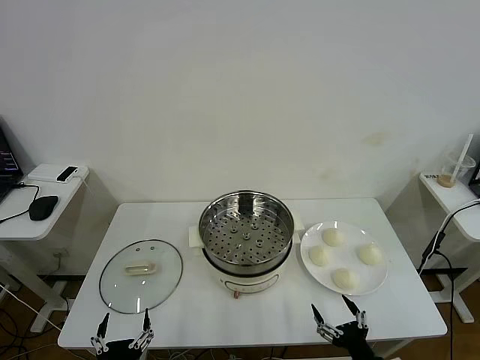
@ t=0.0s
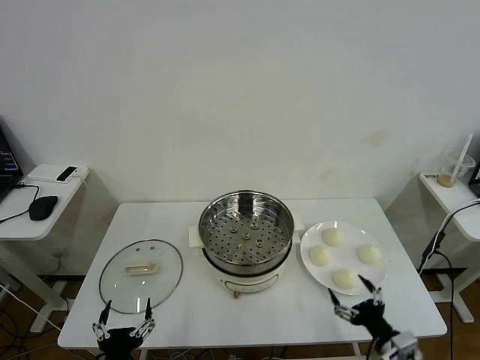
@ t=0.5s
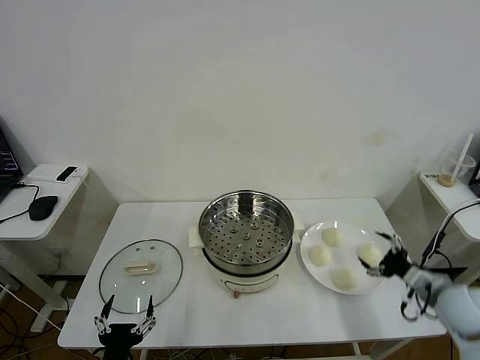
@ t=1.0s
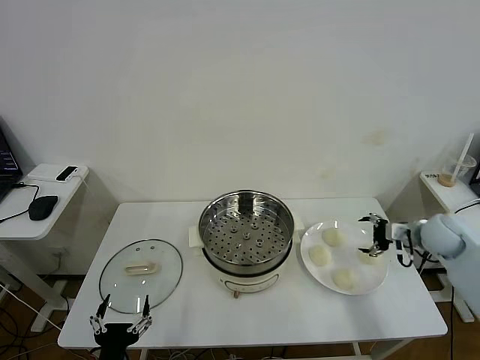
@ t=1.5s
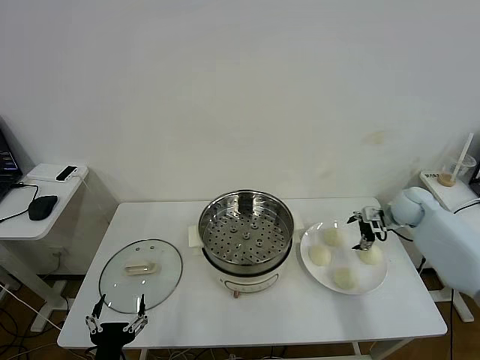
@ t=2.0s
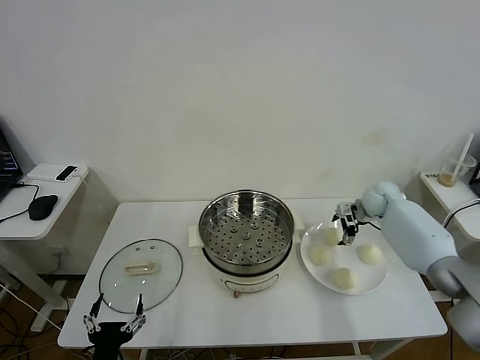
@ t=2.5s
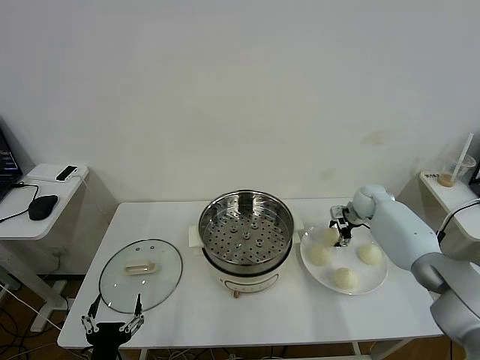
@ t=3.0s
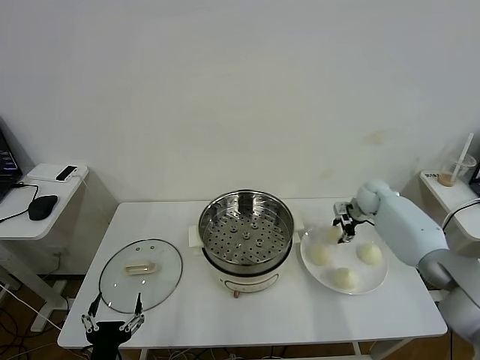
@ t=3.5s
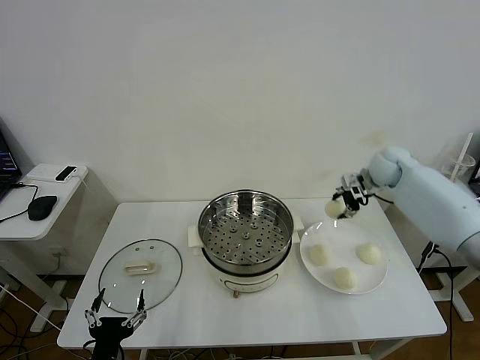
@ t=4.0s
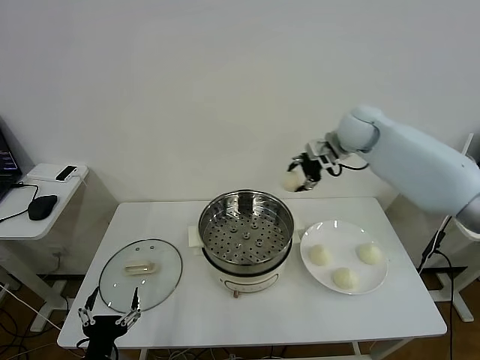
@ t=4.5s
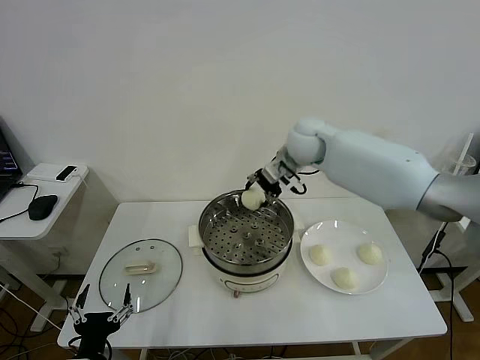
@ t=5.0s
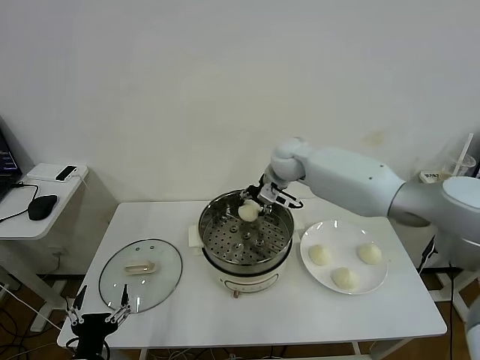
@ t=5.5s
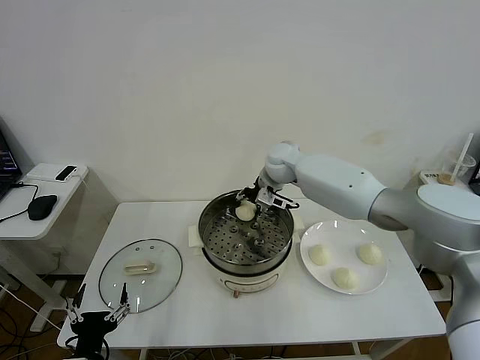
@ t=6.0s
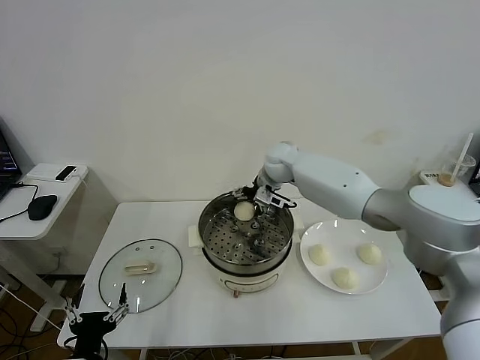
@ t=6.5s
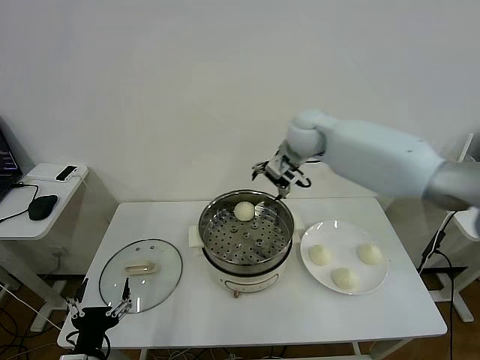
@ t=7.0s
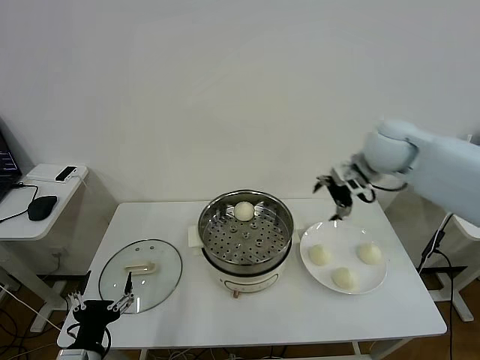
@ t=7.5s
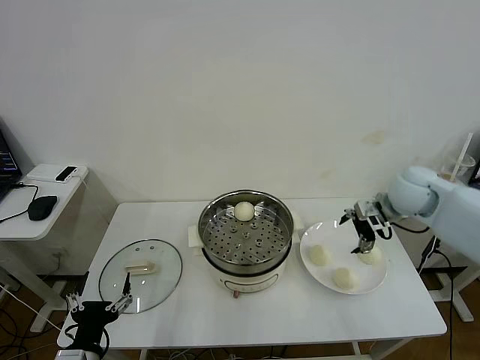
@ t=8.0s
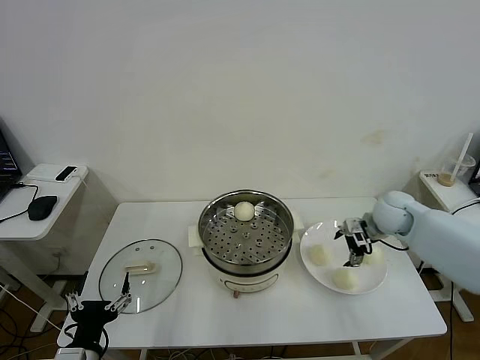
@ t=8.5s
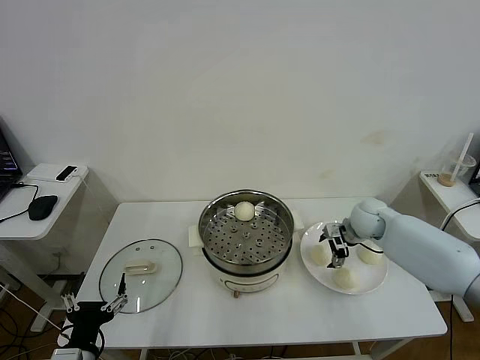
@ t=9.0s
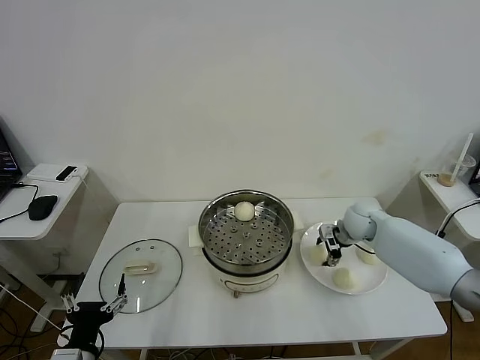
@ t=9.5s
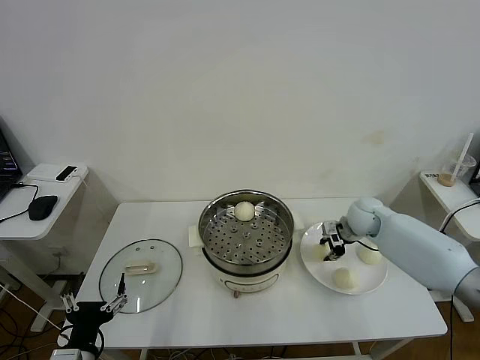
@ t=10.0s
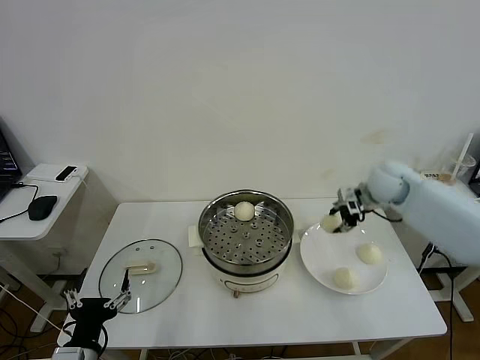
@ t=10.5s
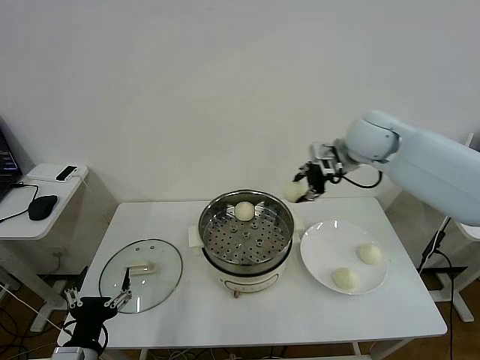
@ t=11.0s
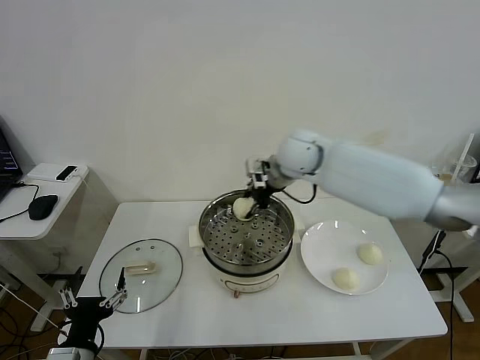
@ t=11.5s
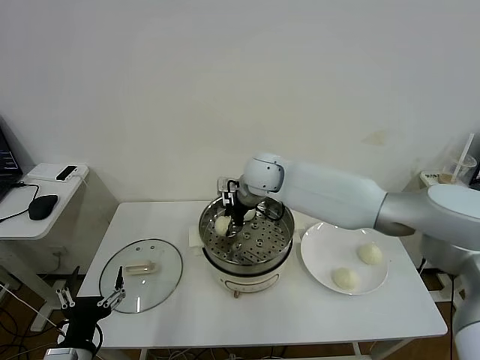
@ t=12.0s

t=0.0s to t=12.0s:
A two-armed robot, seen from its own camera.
Task of the whole recording: take steamed baozi put them in steamer then cover it.
Step, t=0.0s to t=3.0s: Grasp the baozi in the plate with right gripper.
Step, t=3.5s to t=6.5s: Place the baozi on the steamer with right gripper.
Step, t=7.0s to t=9.5s: Grasp the baozi in the plate with right gripper.
t=2.0s to t=4.0s: The right gripper moves upward and to the left, some 15 cm, and closes its fingers.
t=4.0s to t=6.0s: The right gripper is displaced to the left by about 25 cm.
t=6.0s to t=8.0s: The right gripper is displaced to the right and backward by roughly 30 cm, and opens its fingers.
t=8.0s to t=10.0s: The right gripper goes roughly 10 cm downward, and closes its fingers.
t=10.0s to t=12.0s: The right gripper shifts roughly 30 cm to the left and upward.

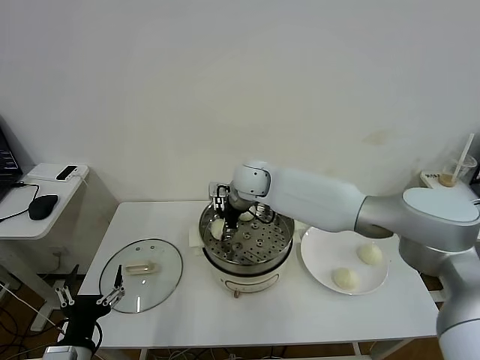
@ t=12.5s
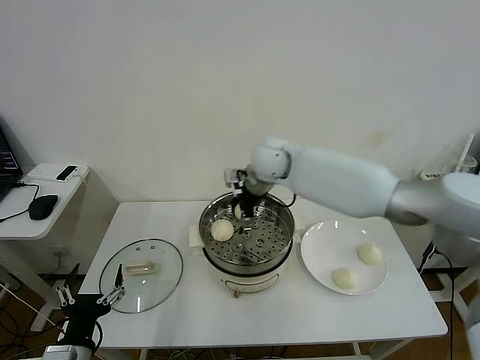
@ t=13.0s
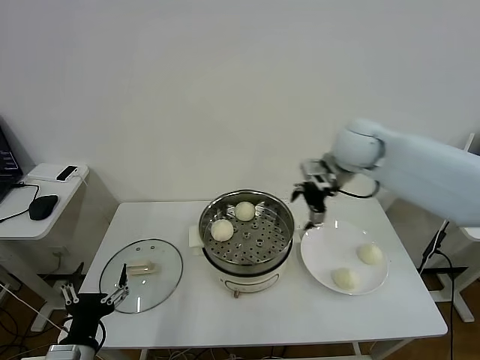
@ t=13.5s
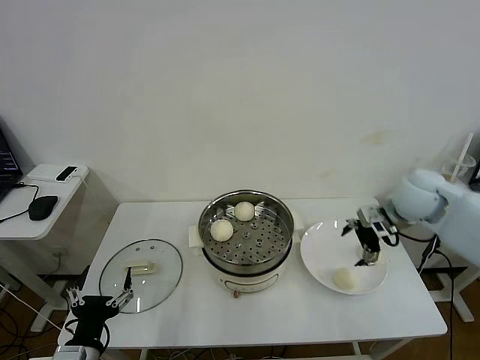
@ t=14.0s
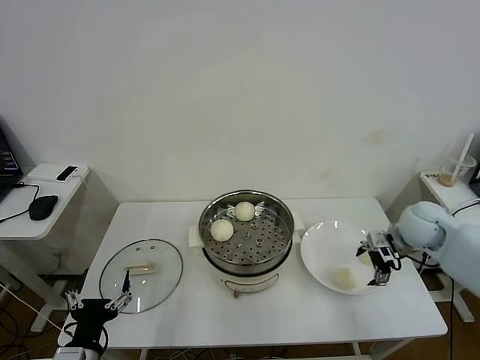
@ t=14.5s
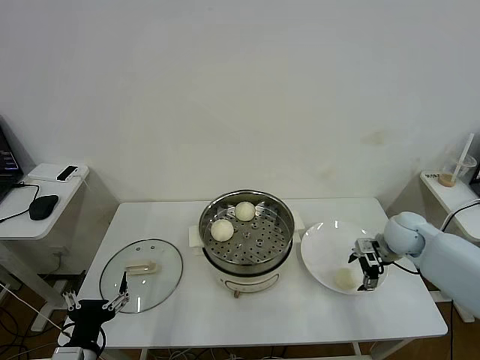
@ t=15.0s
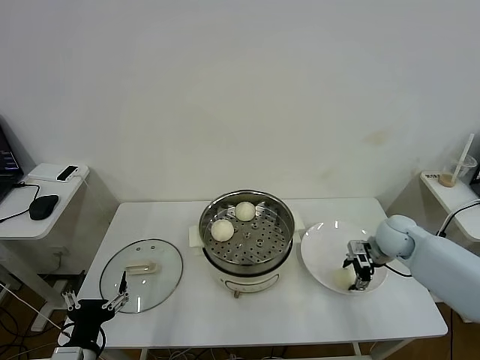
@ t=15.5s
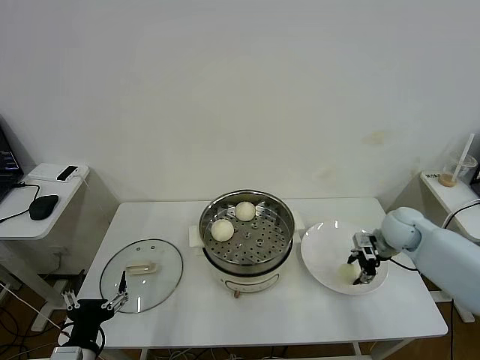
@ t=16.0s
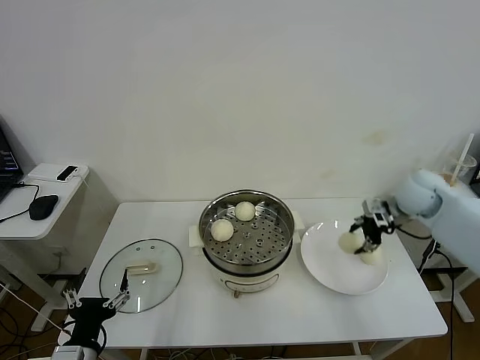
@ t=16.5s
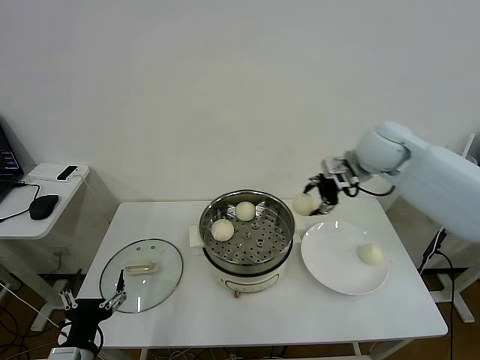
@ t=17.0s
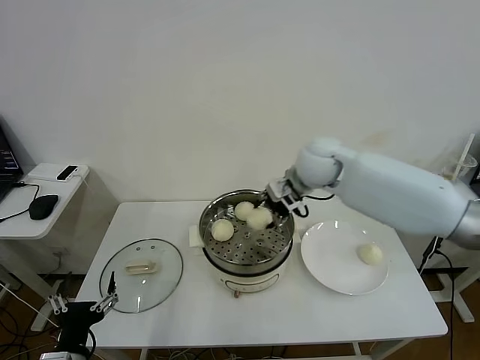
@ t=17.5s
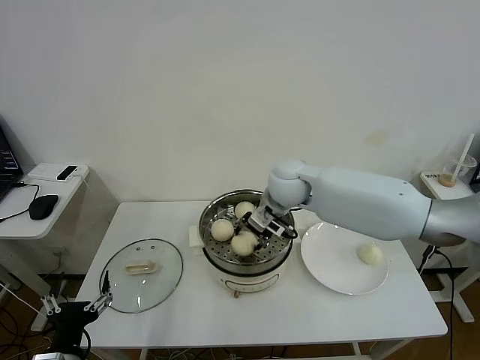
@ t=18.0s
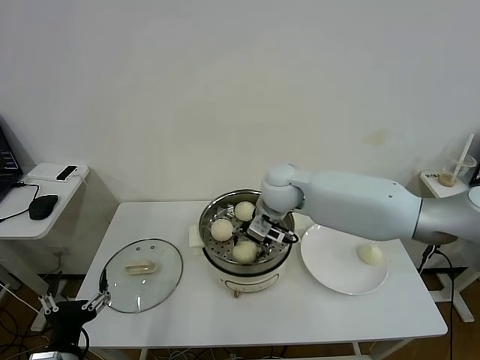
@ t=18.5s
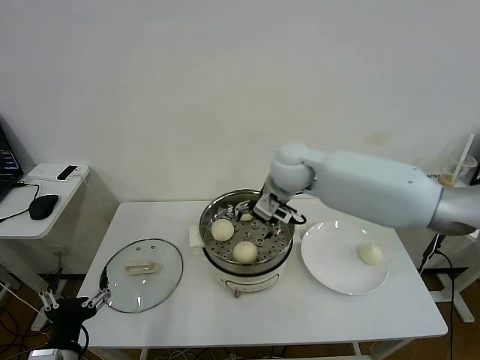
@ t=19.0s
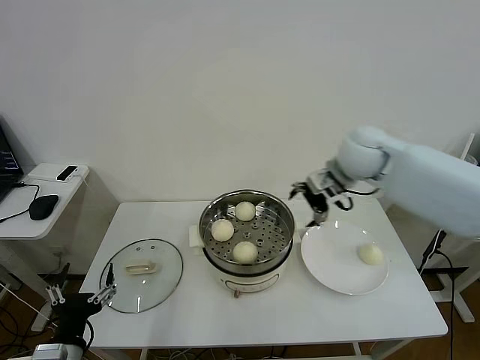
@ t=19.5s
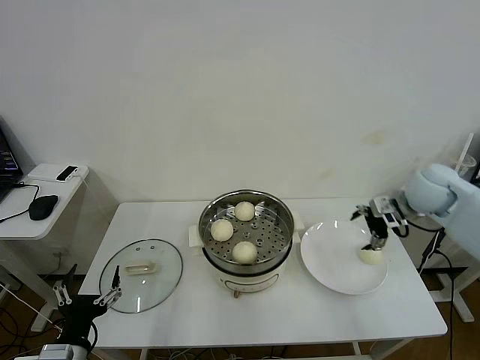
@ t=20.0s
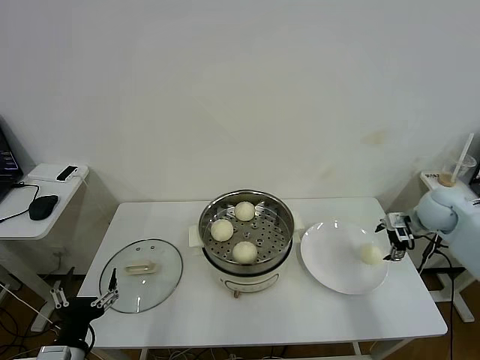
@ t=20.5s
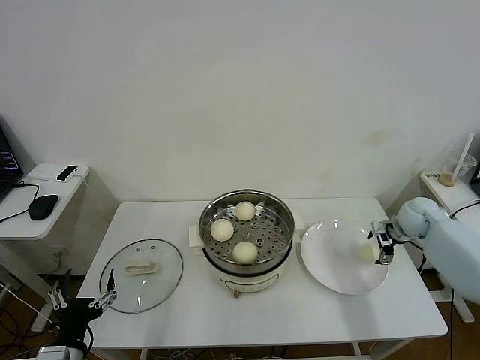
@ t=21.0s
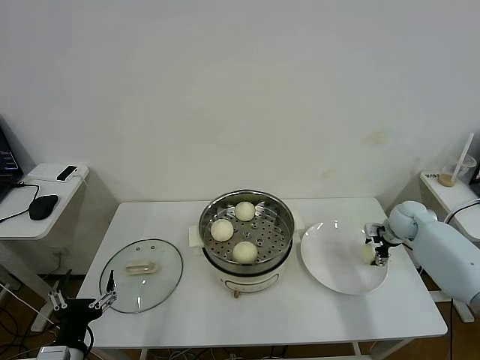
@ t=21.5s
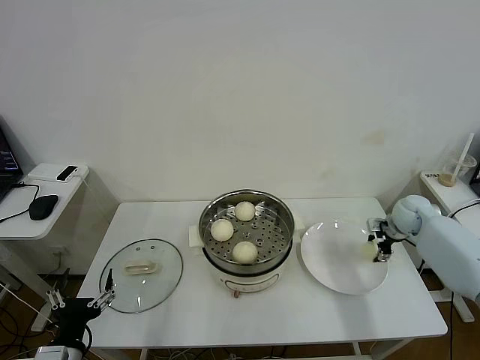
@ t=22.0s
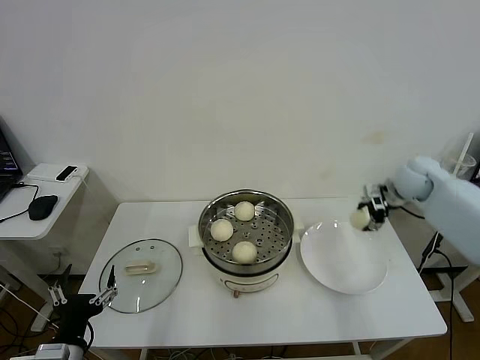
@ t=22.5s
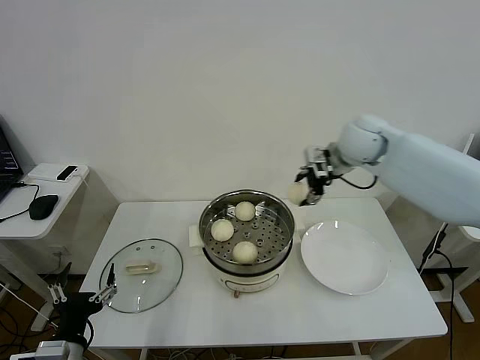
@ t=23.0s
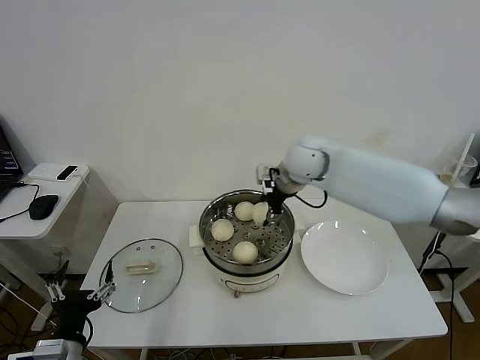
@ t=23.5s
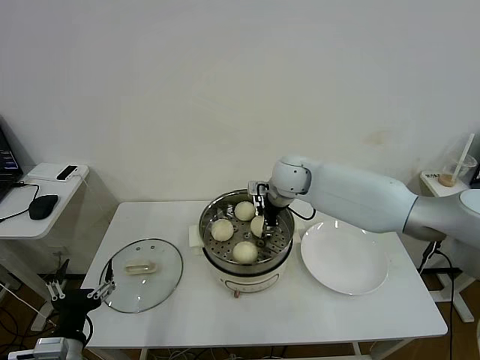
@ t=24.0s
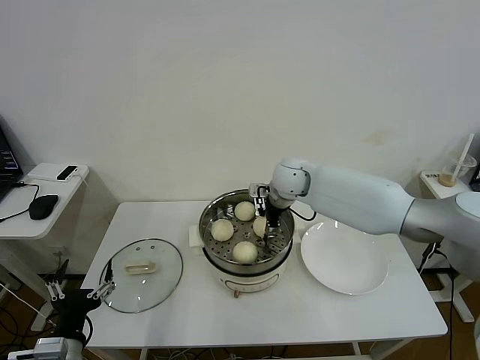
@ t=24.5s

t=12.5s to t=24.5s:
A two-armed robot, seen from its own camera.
Task of the whole recording: take steamed baozi put them in steamer then cover it.
Step, t=13.0s to t=15.5s: Grasp the baozi in the plate with right gripper.
Step, t=16.0s to t=18.5s: Place the baozi on the steamer with right gripper.
Step, t=19.0s to t=21.5s: Grasp the baozi in the plate with right gripper.
t=12.5s to t=14.5s: The right gripper heads to the right, covering approximately 35 cm, and opens its fingers.
t=14.5s to t=16.5s: The right gripper heads upward and forward, covering approximately 10 cm, and closes.
t=16.5s to t=18.5s: The right gripper goes roughly 30 cm to the left.
t=18.5s to t=20.5s: The right gripper shifts some 35 cm to the right, and opens.
t=20.5s to t=22.5s: The right gripper is displaced to the left, upward and forward by some 10 cm, and closes up.
t=22.5s to t=24.5s: The right gripper heads to the left, covering about 30 cm.

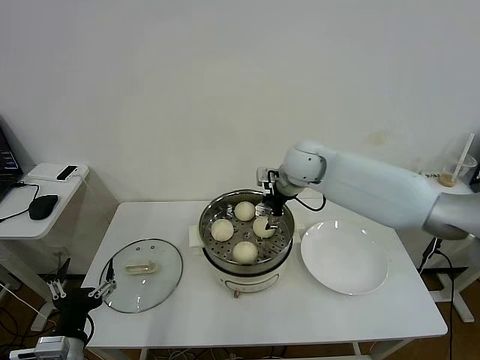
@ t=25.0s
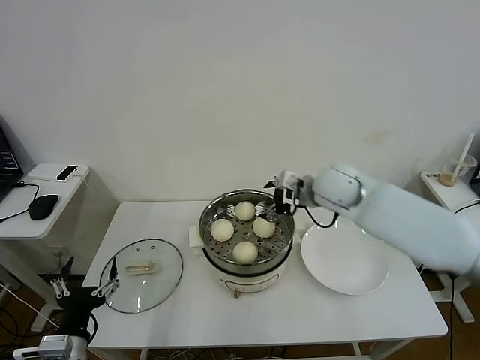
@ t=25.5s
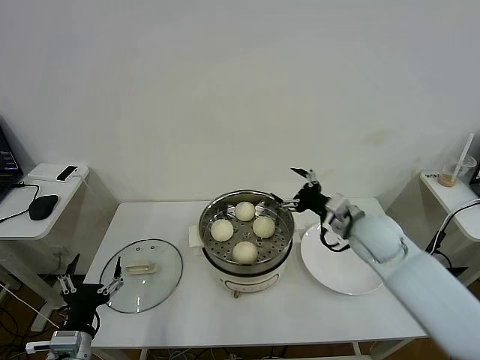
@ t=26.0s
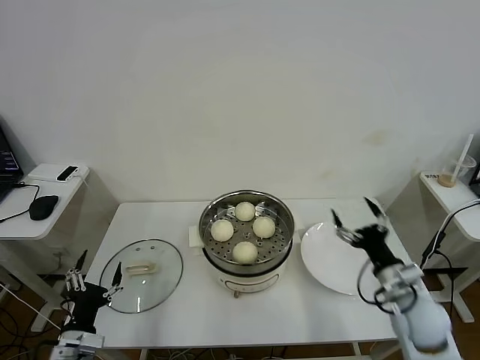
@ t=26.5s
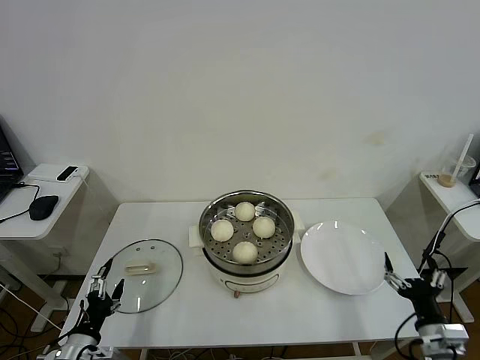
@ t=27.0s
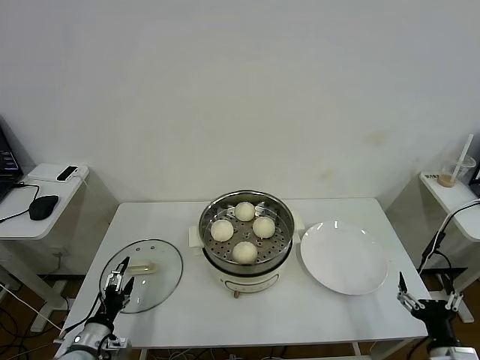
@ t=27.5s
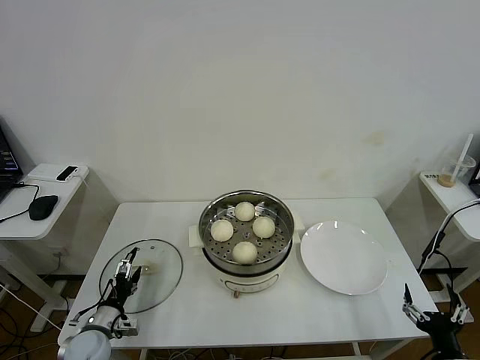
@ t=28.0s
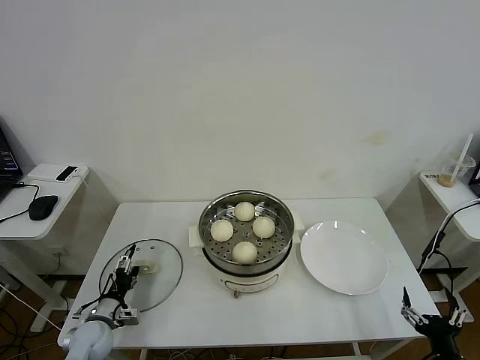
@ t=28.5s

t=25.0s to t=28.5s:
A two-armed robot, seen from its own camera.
Task of the whole recording: take steamed baozi put them in steamer then cover it.
t=25.0s to t=27.0s: The left gripper moves downward, some 10 cm; the right gripper heads backward, to the right and downward, covering about 50 cm.
t=27.0s to t=28.5s: The right gripper goes roughly 5 cm backward. Meanwhile the left gripper heads forward and downward, covering roughly 15 cm.
